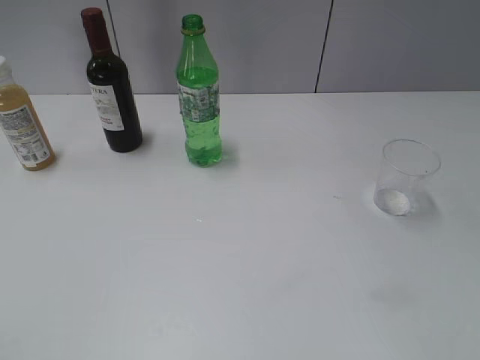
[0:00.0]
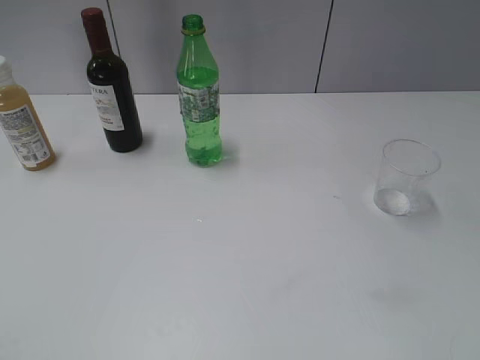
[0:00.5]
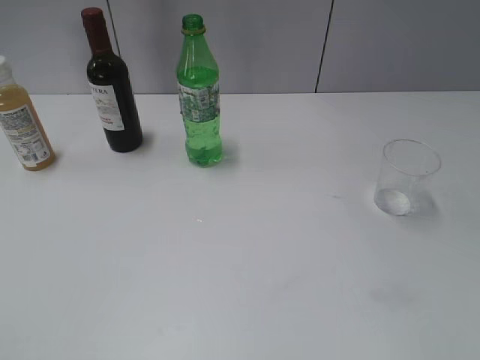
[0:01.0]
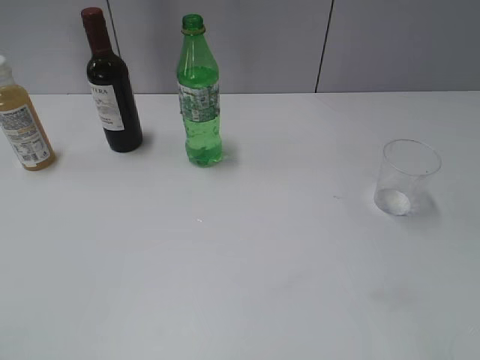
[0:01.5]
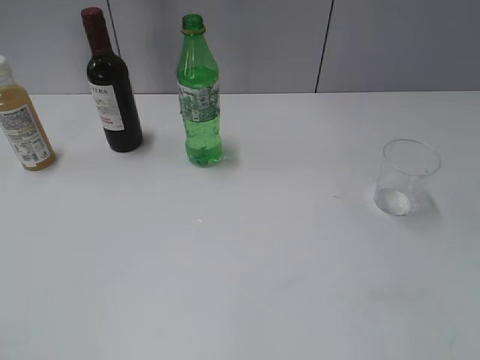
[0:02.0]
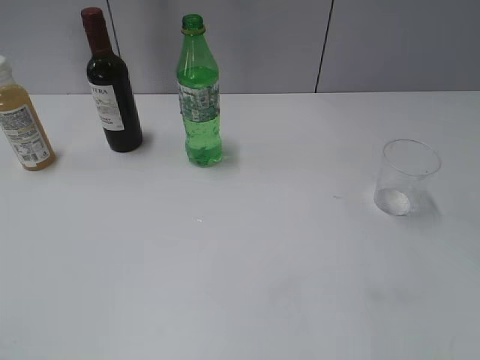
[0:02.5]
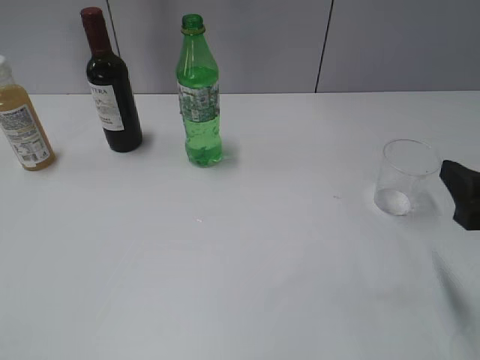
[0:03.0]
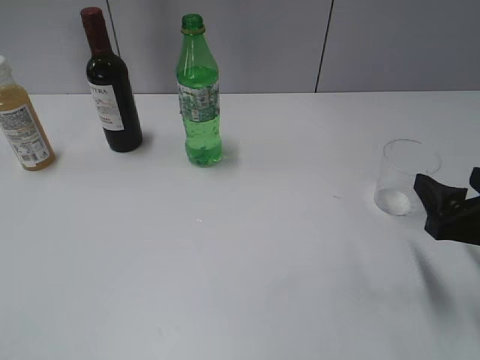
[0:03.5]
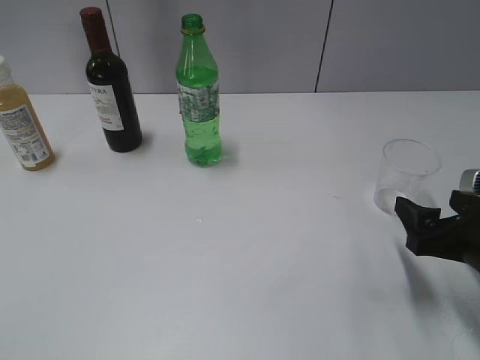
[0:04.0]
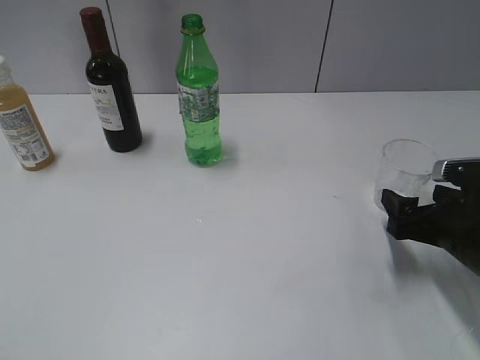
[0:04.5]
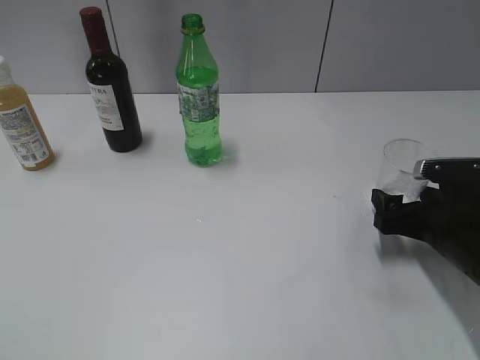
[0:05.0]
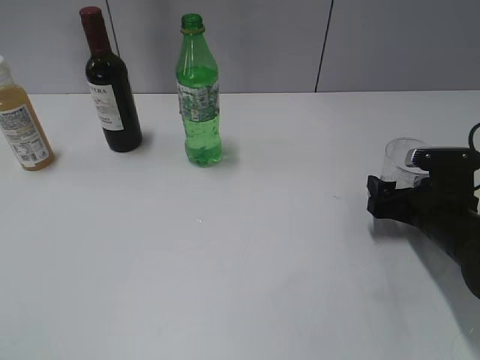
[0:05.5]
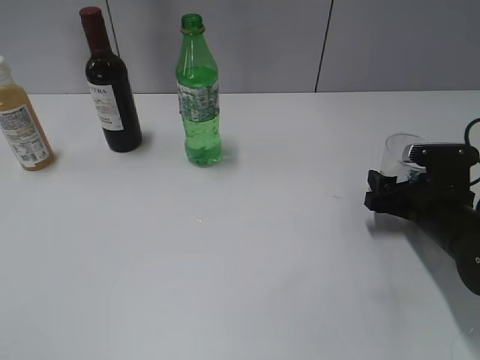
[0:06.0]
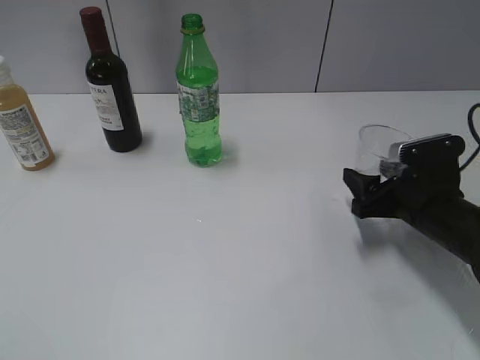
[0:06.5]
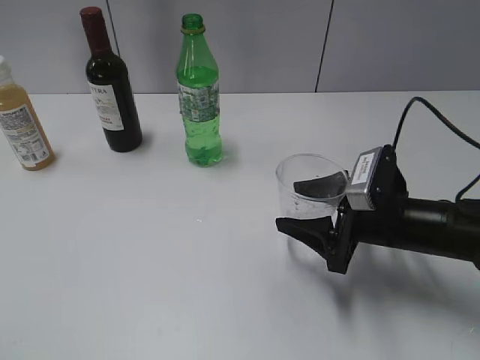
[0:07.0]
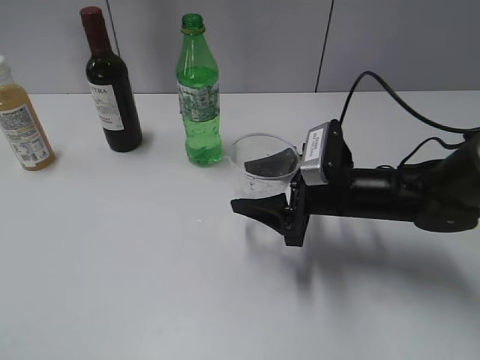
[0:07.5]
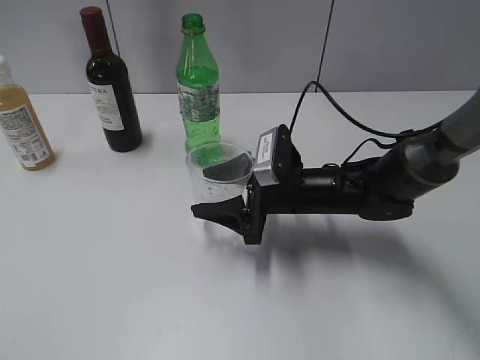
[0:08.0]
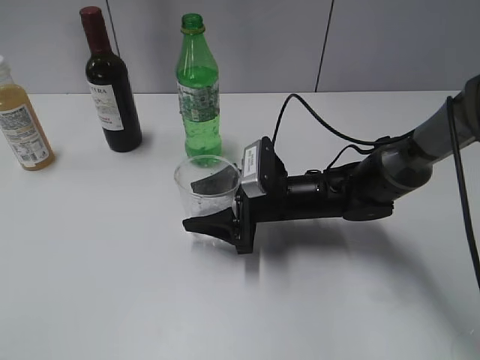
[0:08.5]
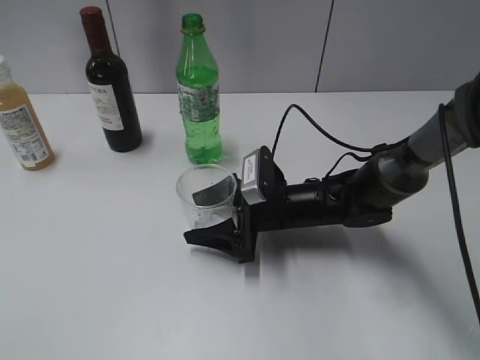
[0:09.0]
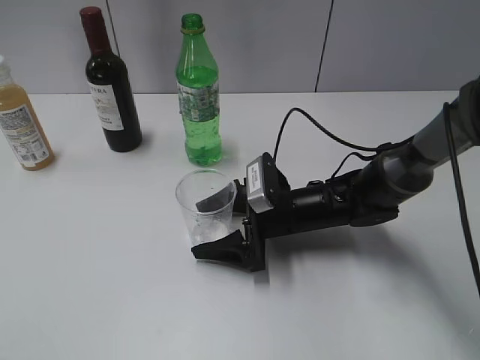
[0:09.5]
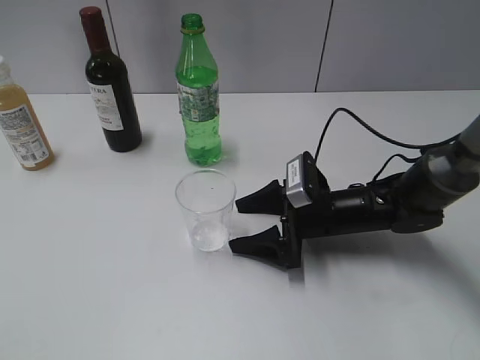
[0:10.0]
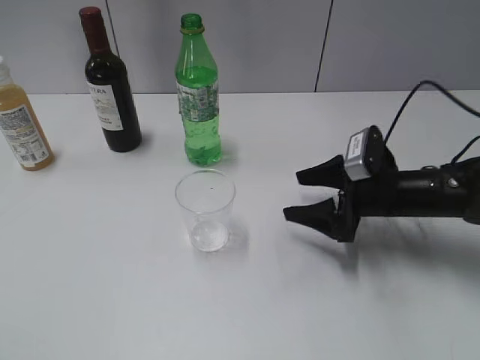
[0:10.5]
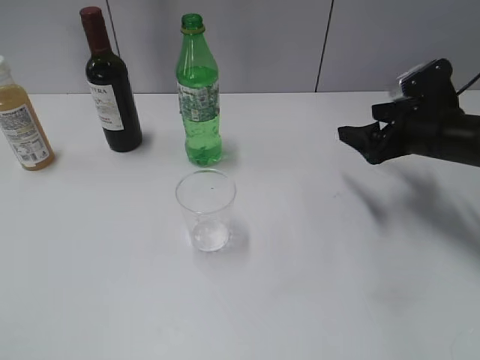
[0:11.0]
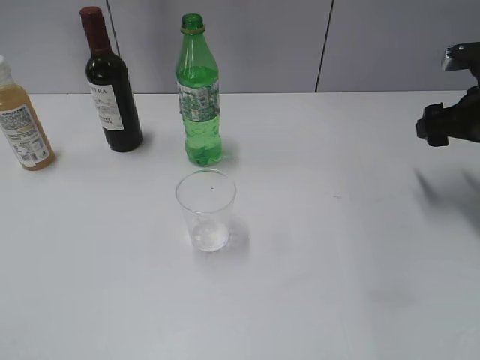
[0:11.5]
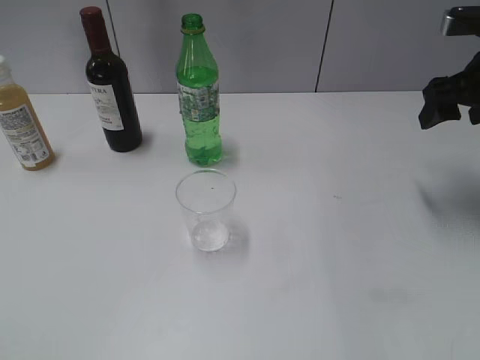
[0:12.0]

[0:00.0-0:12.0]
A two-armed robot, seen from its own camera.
Step, 1.0 to 6.0 s: Grasp the transparent cup with right gripper.
Step, 6.5 to 10.0 s: Place the transparent cup on the table with right gripper.
2.0 to 4.0 s: The right gripper heads downward and forward, covering about 20 cm.
4.0 to 6.0 s: The right gripper travels forward and downward by some 10 cm, and closes its fingers.
6.0 to 8.0 s: The right gripper is displaced to the left by approximately 15 cm.
8.0 to 10.0 s: The right gripper moves approximately 5 cm, and opens.
10.0 to 12.0 s: The right gripper heads upward and to the right, covering some 25 cm.

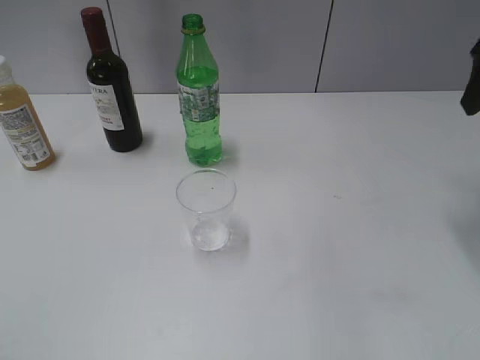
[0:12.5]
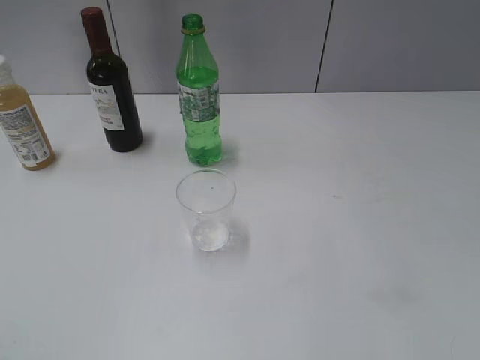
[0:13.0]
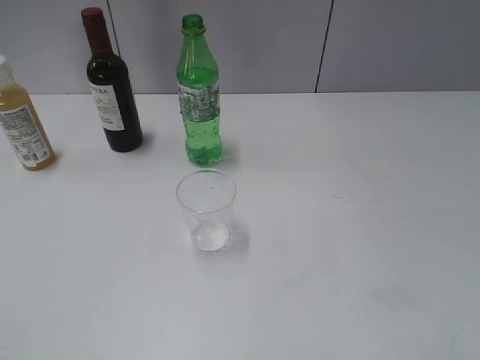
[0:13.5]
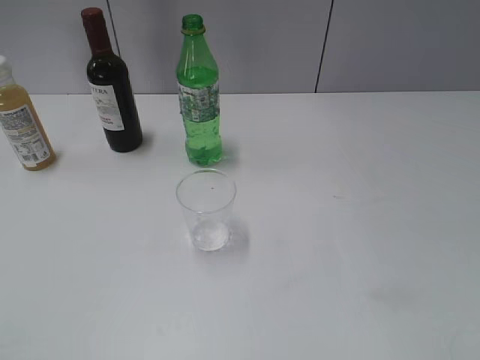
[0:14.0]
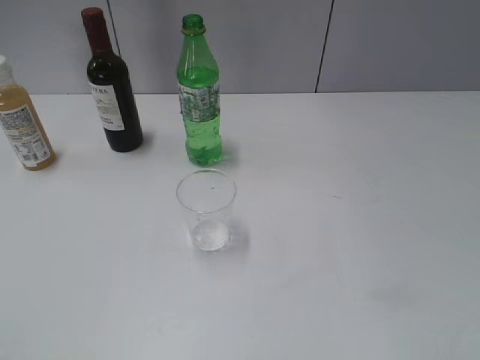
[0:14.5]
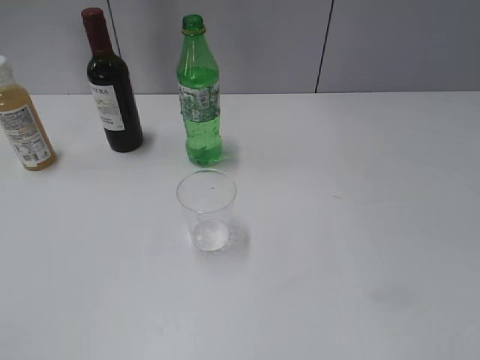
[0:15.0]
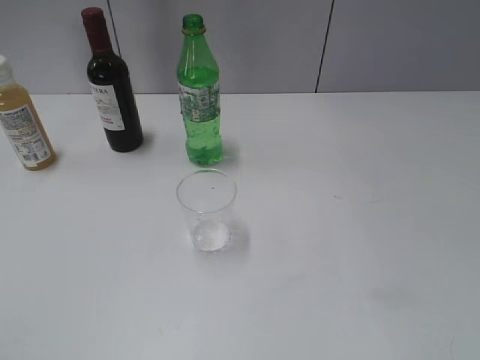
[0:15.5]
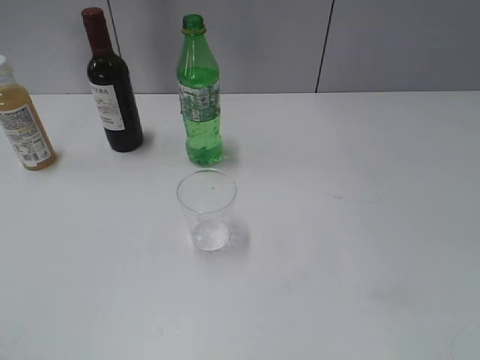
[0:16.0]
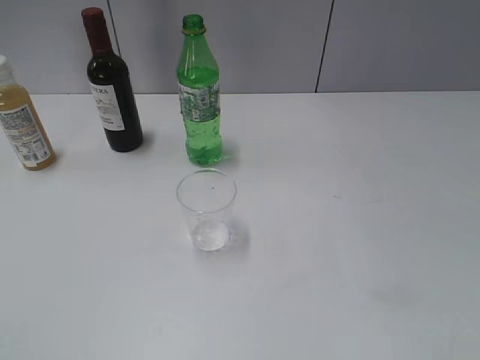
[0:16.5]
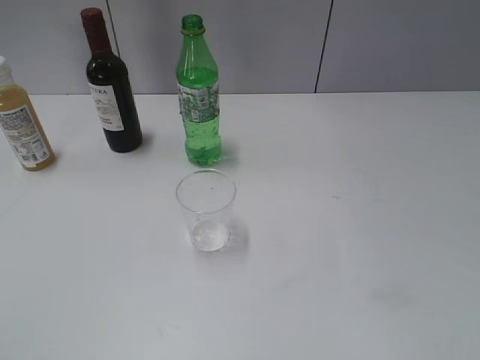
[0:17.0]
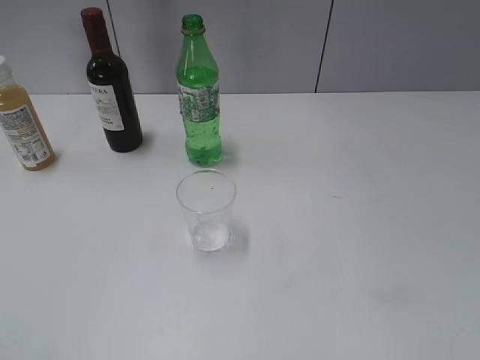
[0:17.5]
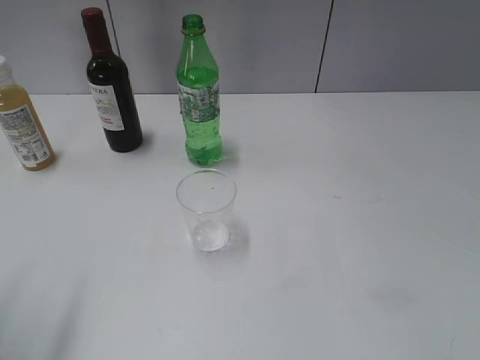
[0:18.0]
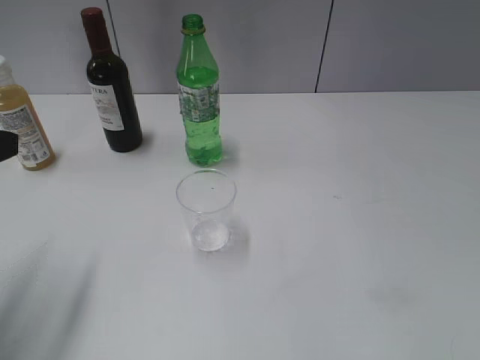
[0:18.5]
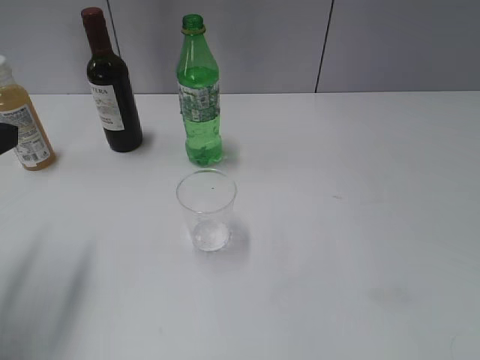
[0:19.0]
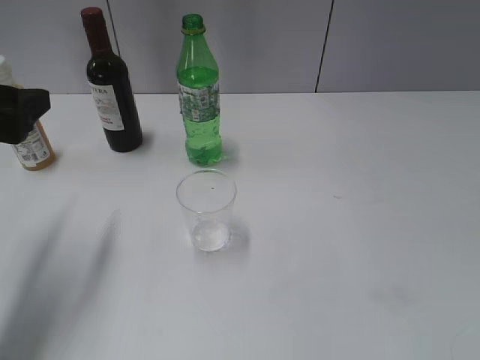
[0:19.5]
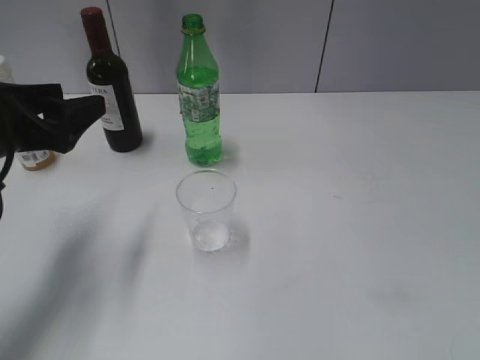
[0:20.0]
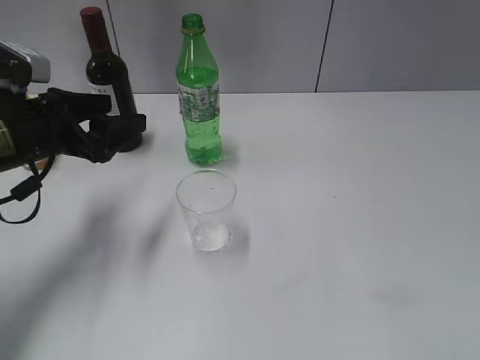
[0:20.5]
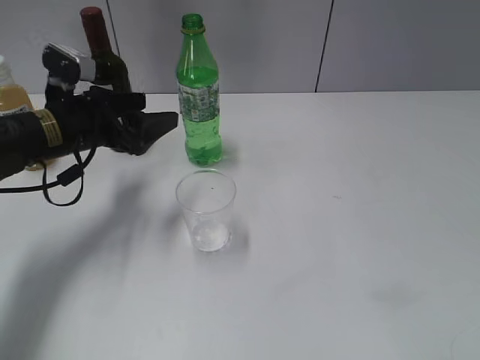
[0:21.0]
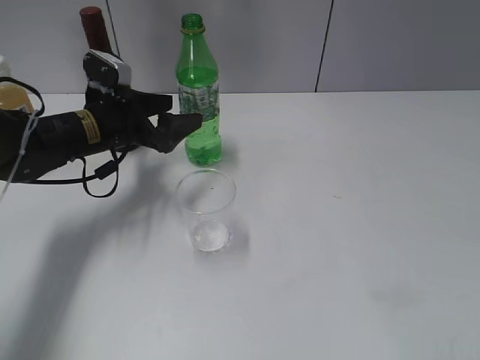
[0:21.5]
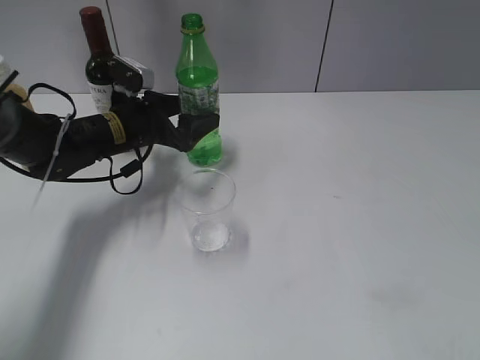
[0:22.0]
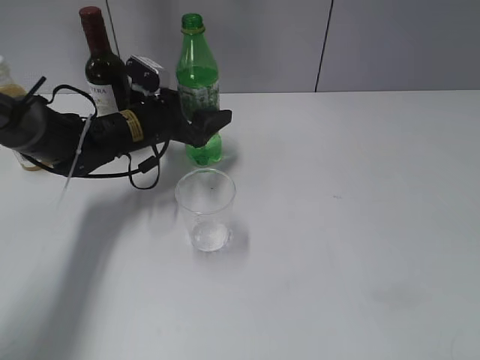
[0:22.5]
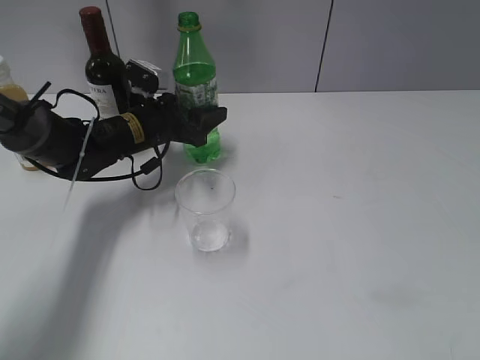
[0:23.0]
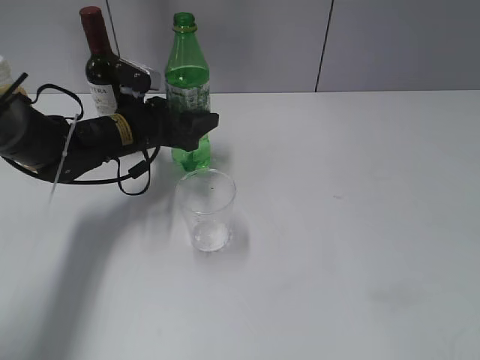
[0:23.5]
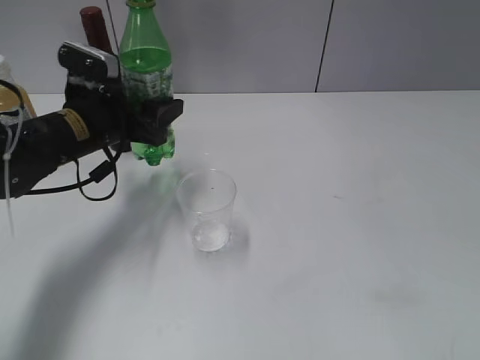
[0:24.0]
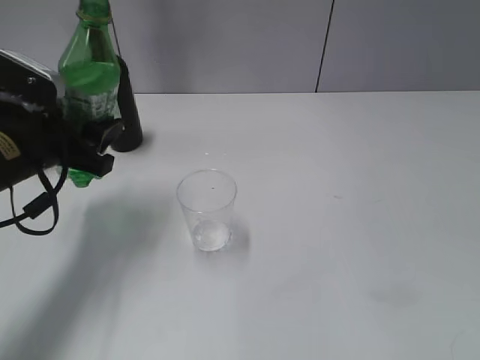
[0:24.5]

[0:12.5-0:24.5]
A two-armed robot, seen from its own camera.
Step, 12.5 to 23.0 s: Grasp the bottle with sprite with left gripper.
12.5 to 14.5 s: The right gripper shifts some 30 cm backward.
14.5 to 16.5 s: Both grippers stay about where they are.
16.5 to 18.5 s: The left gripper goes roughly 20 cm forward, and opens its fingers.
18.5 to 20.5 s: The left gripper heads forward, downward and to the right, covering approximately 15 cm.
20.5 to 22.5 s: The left gripper moves forward, to the right and downward, some 15 cm.
22.5 to 24.5 s: The left gripper moves backward, to the left and upward, about 20 cm, and closes its fingers.

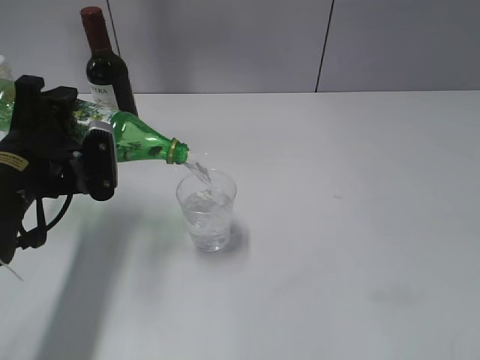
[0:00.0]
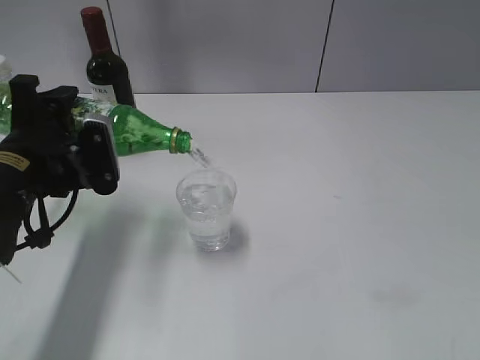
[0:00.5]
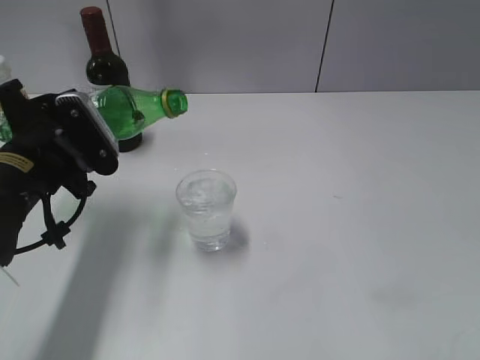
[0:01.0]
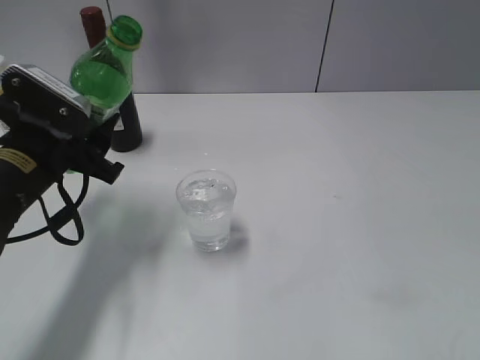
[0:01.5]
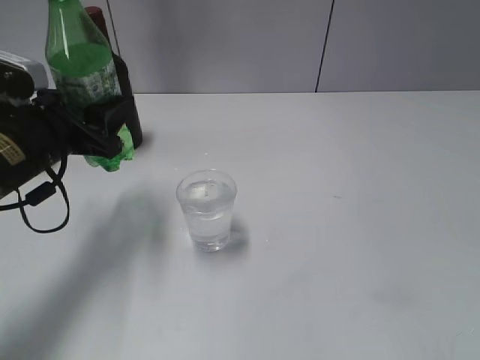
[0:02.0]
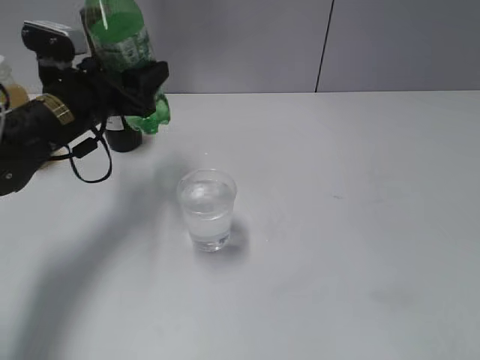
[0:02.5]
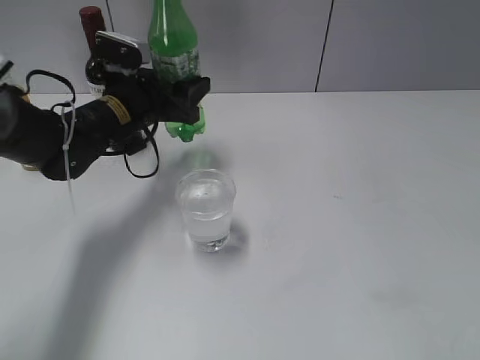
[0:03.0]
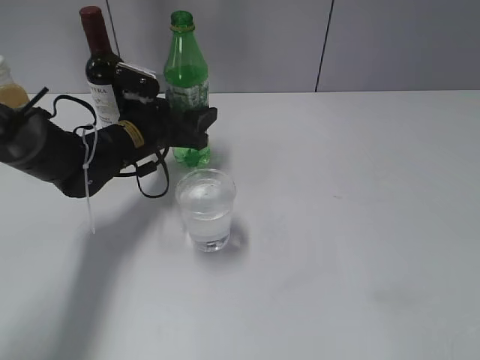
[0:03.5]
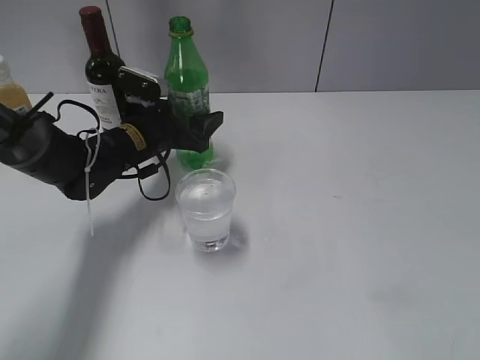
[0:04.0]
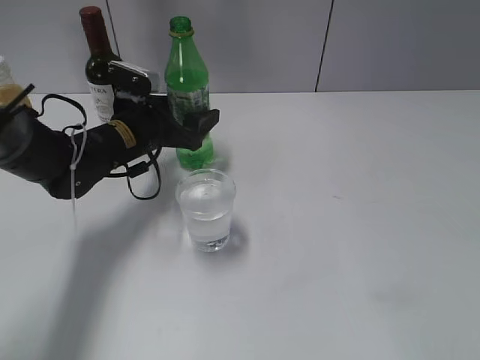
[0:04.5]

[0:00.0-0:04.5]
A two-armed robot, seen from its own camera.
2.0 to 4.5 s: The left gripper shifts some 15 cm forward, to the right and downward, and opens.
